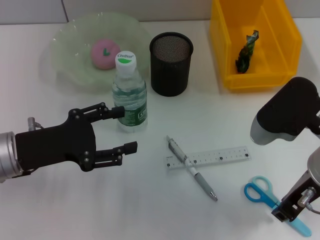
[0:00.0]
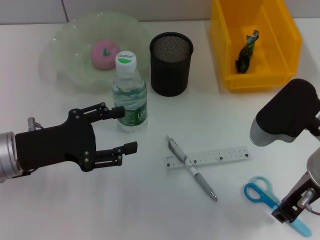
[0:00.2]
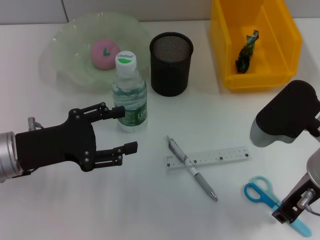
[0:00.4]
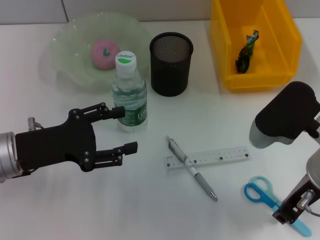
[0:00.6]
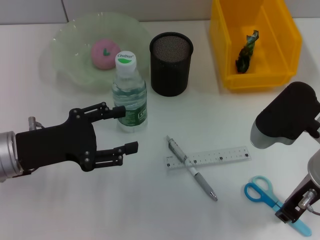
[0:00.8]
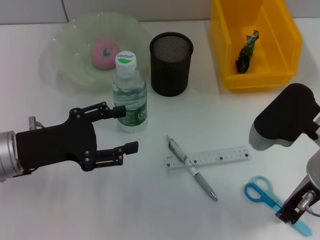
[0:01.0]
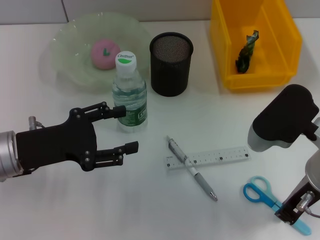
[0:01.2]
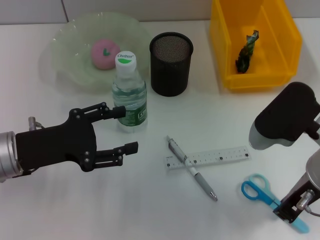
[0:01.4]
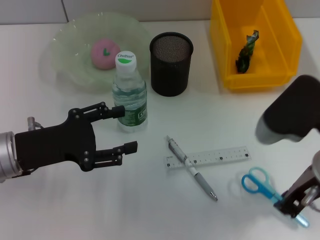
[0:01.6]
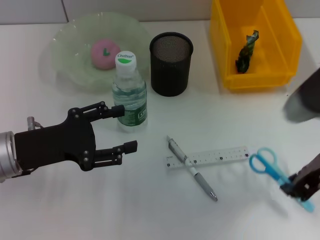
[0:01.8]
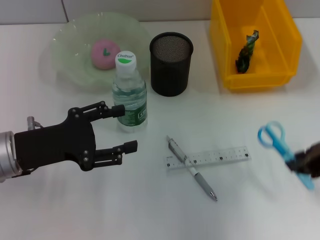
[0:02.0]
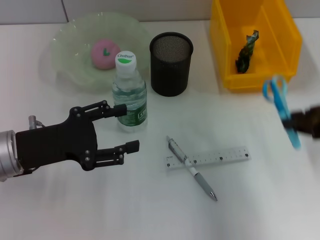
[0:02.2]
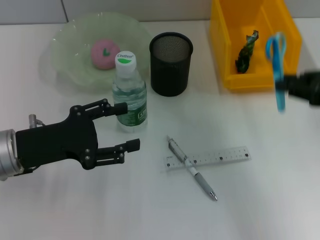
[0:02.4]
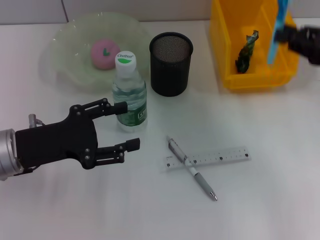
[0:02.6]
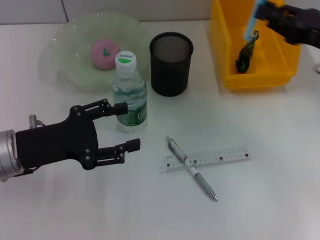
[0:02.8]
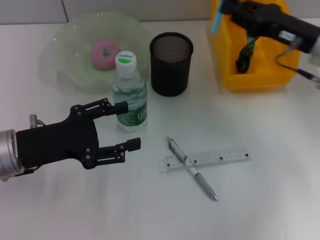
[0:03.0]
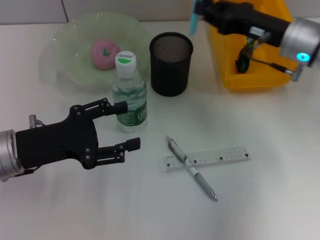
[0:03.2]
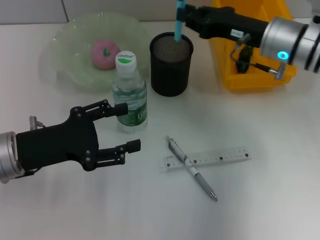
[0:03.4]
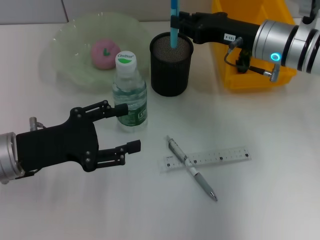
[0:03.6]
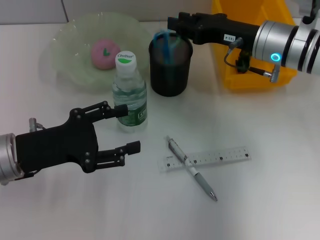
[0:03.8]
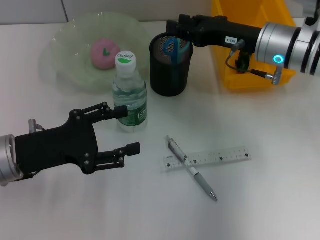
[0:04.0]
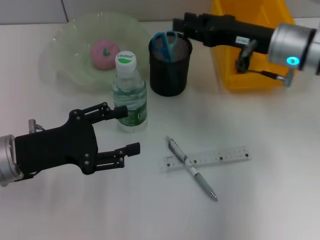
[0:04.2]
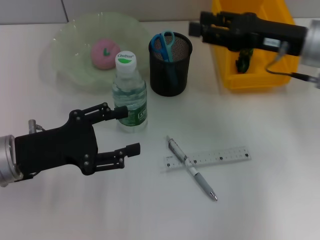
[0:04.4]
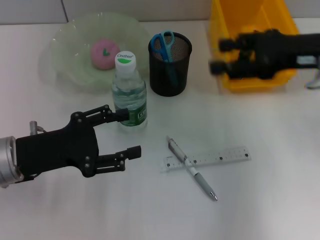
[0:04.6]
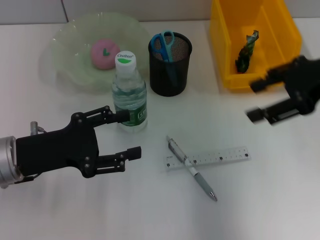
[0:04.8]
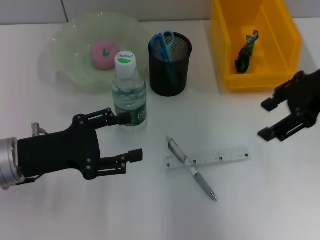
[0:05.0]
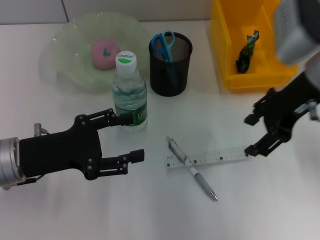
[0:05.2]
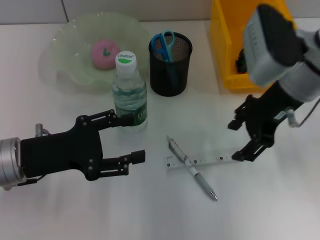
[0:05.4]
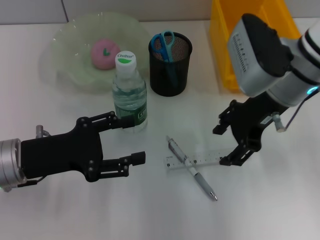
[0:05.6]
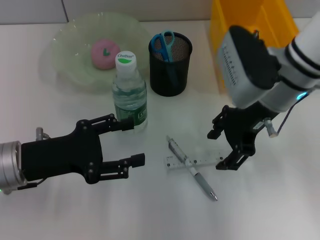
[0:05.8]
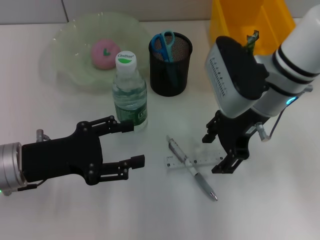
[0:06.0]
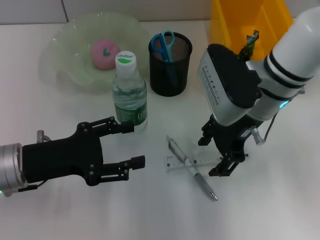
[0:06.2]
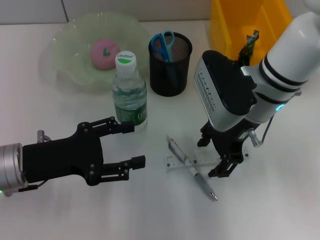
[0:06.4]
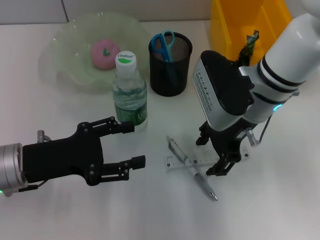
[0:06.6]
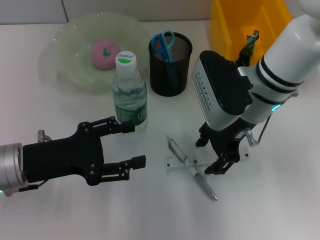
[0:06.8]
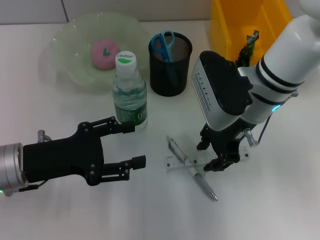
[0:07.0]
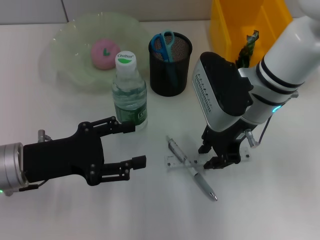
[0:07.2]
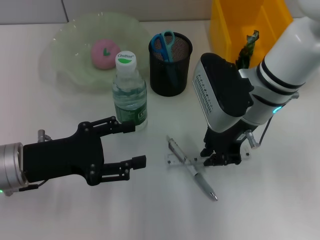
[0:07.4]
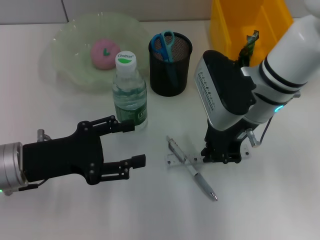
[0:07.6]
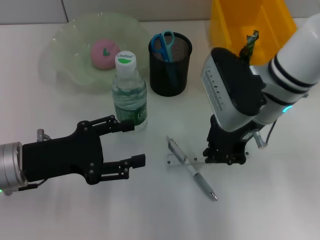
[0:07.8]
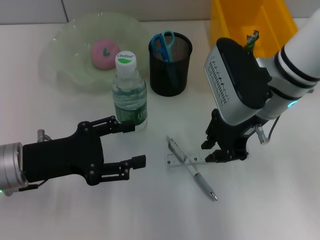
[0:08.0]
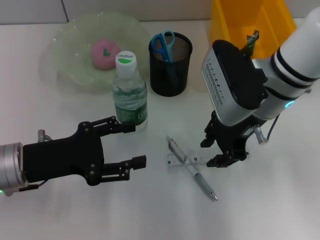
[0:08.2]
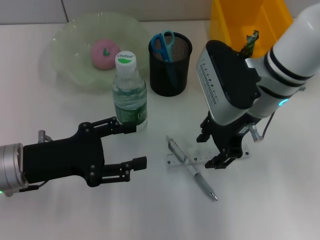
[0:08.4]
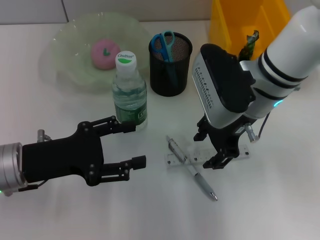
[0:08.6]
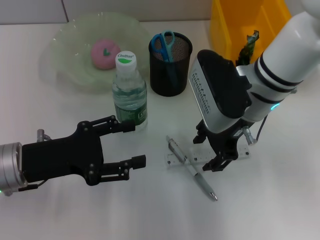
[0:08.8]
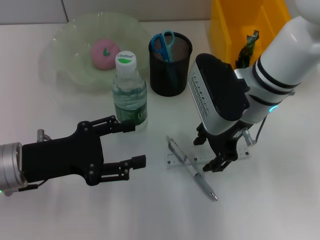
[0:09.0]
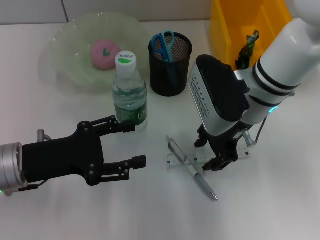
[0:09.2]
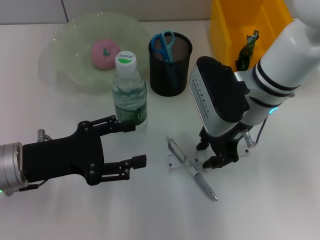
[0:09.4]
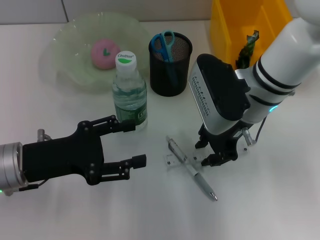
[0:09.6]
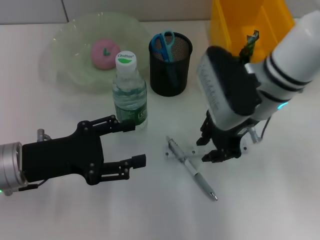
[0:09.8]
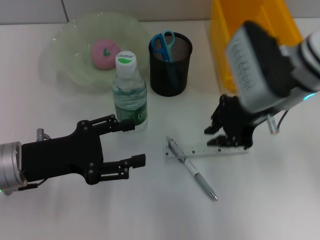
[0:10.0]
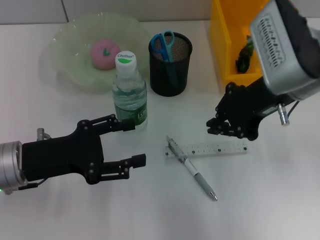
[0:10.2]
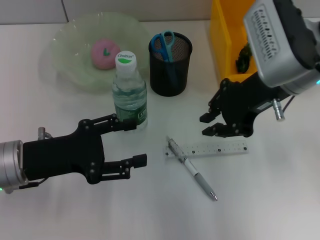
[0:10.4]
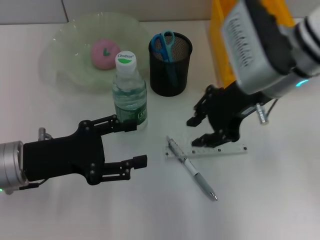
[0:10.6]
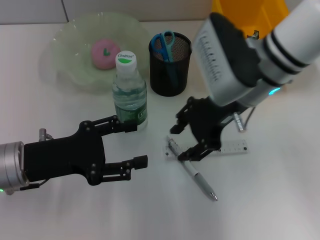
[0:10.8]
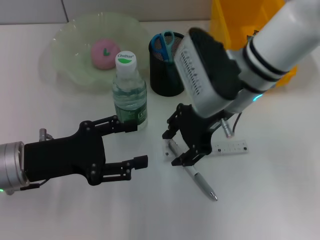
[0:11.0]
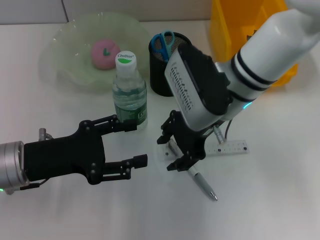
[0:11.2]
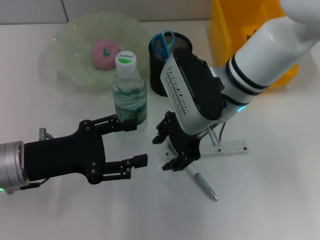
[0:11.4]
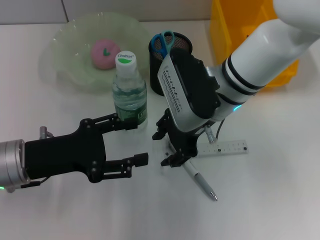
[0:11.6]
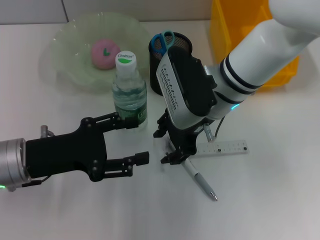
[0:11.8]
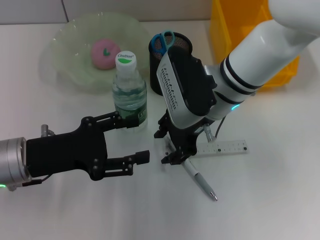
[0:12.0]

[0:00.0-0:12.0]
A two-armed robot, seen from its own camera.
Step, 0:01.2 to 0:04.0: Place the blue scissors into the pen holder with the right hand.
0:00.0 to 0:01.6: Neither gripper changes place.
0:01.6 to 0:03.0: The right gripper is displaced forward and to the right by roughly 15 cm.
0:03.0 to 0:04.4: The right gripper opens up.
0:04.4 to 0:06.0: The right gripper heads to the left, covering some 10 cm.
0:06.0 to 0:07.6: The right gripper closes.
0:07.6 to 0:09.0: The right gripper opens its fingers.
0:09.0 to 0:10.4: The right gripper is displaced upward by about 5 cm, and closes.
0:10.4 to 0:12.0: The right gripper goes about 10 cm to the left and downward, and opens.

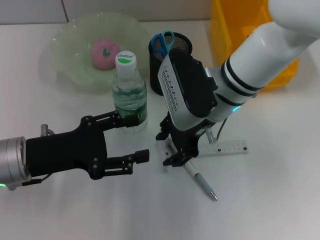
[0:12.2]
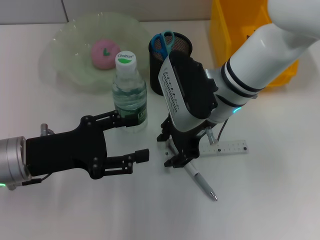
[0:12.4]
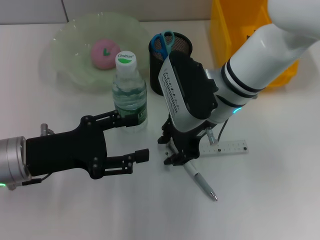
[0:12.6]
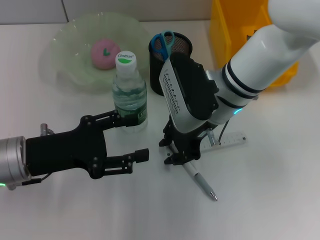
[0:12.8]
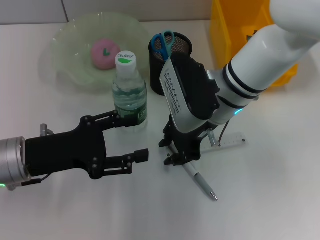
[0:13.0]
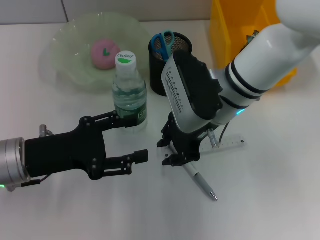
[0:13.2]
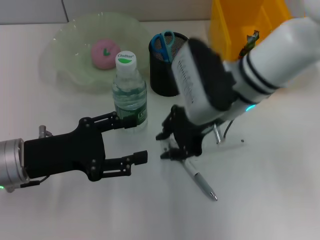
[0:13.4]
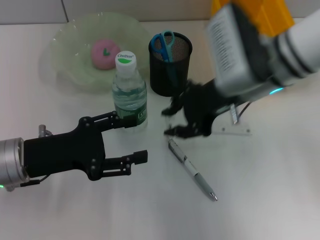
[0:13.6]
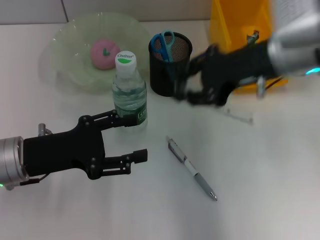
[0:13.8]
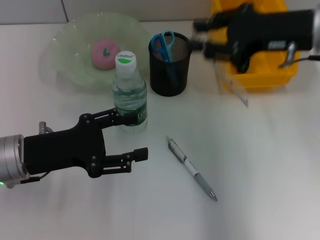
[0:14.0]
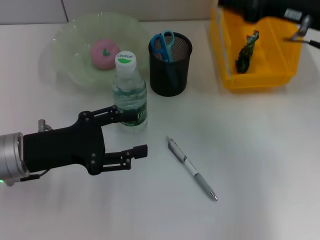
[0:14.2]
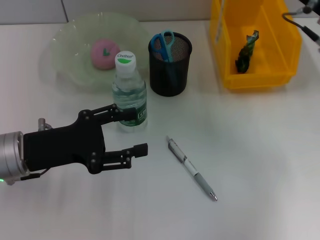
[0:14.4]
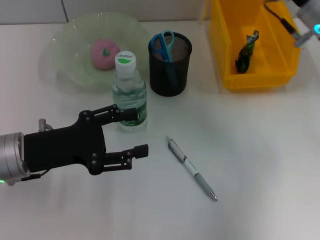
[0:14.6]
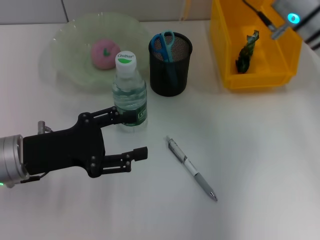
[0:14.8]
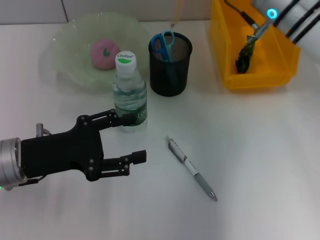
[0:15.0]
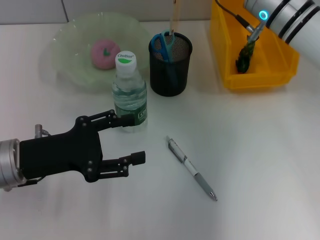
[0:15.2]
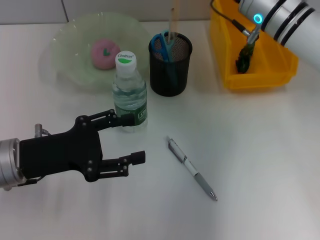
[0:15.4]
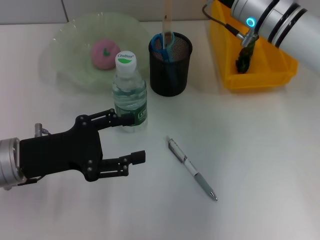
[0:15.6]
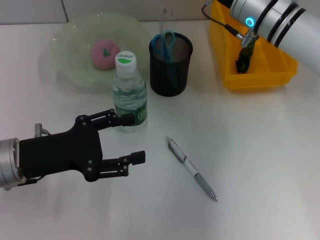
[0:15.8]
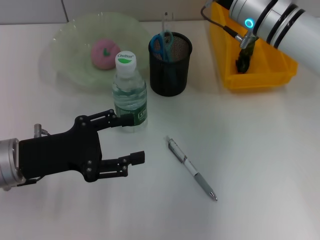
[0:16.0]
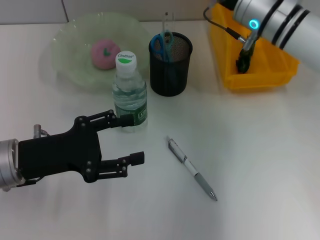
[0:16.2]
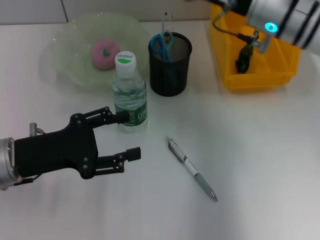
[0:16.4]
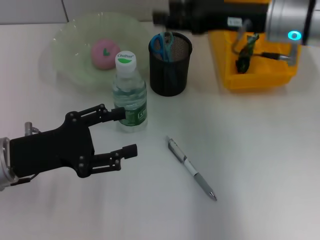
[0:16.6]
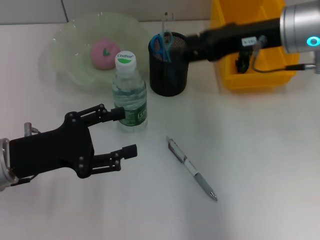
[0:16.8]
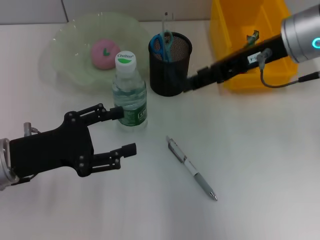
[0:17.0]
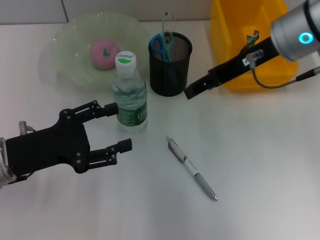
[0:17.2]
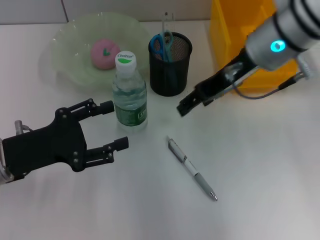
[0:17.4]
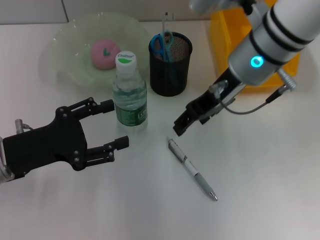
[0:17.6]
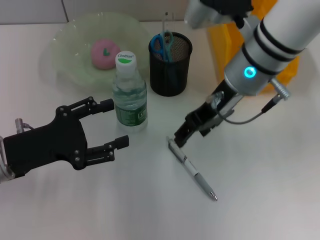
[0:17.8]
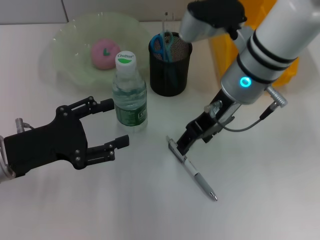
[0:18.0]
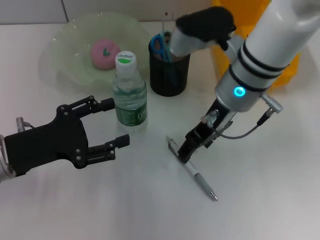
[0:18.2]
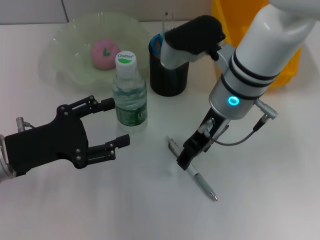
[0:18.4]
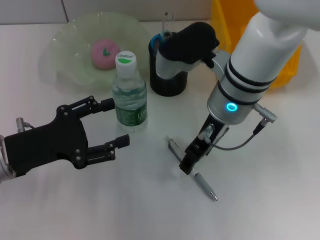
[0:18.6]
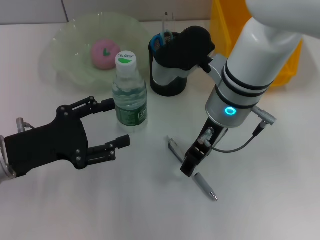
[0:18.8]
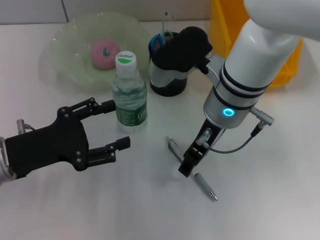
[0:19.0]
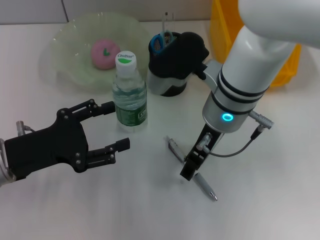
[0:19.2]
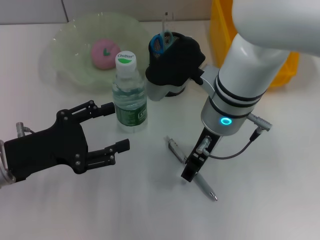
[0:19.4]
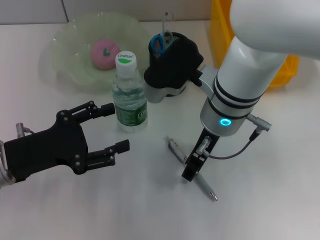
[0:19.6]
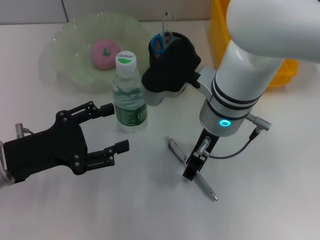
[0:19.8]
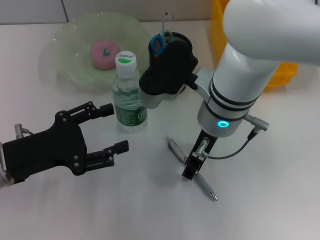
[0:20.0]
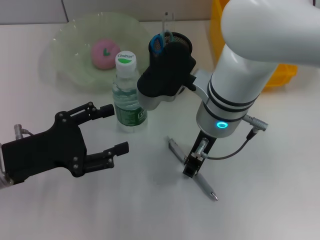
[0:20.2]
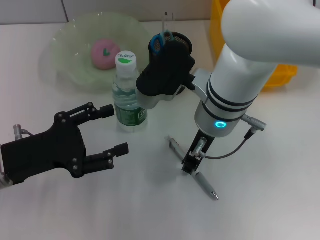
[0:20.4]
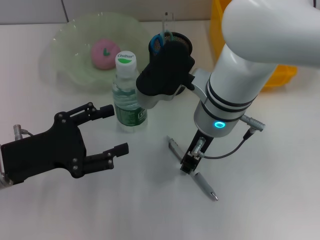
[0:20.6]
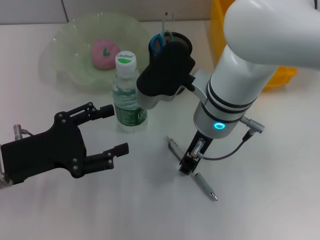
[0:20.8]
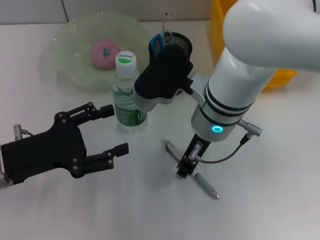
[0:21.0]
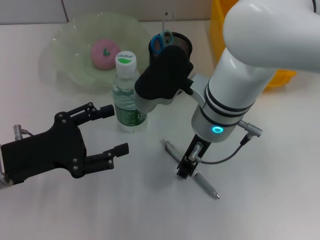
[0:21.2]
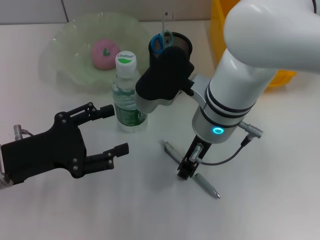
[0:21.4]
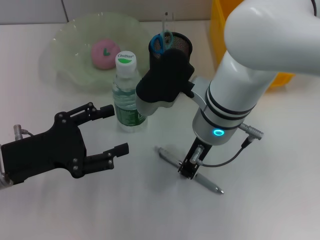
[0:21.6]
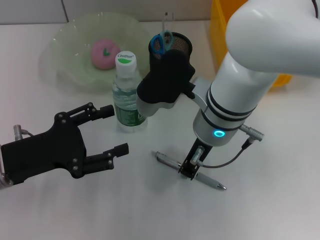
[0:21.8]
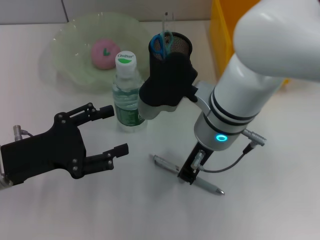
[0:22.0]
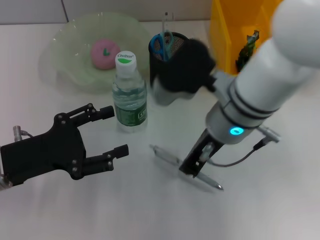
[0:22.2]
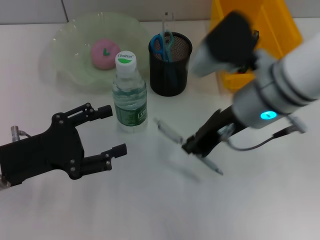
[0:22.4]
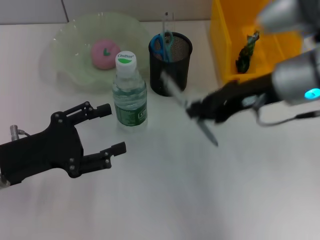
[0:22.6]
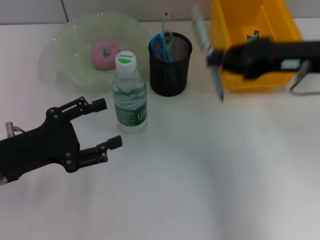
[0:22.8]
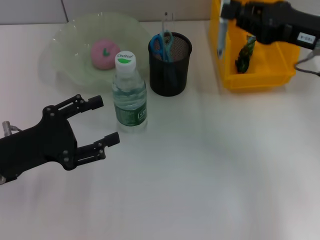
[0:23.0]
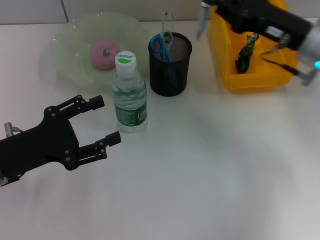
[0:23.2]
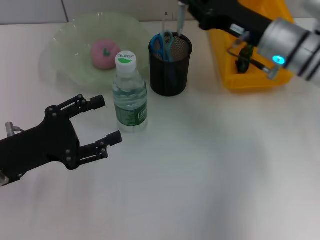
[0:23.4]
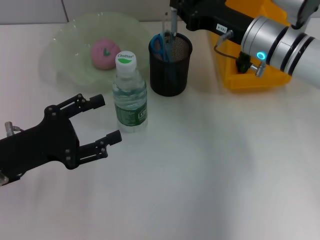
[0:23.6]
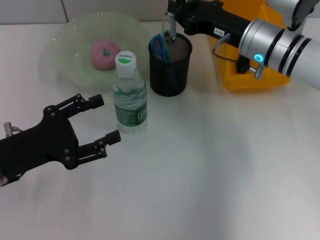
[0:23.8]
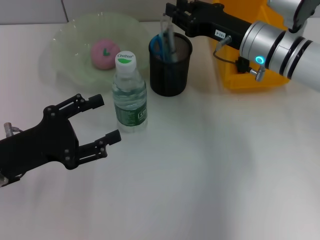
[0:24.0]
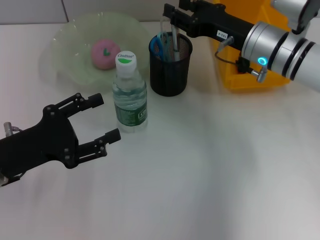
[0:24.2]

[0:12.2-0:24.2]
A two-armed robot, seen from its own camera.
Step, 0:13.2 to 0:15.8: Place the ruler into the pen holder with the right hand.
Step, 0:16.2 to 0:21.8: Grab the gray spring-action pen with the right hand.
Step, 0:22.0 to 0:24.0: Place the gray spring-action pen into the pen holder with the right hand.
0:12.2 to 0:13.8: The right gripper goes roughly 10 cm to the right and upward.
0:13.8 to 0:15.2: The right gripper travels forward by some 10 cm, and travels to the right and back again, approximately 5 cm each way.
0:15.2 to 0:16.6: The right gripper moves approximately 5 cm.
0:16.6 to 0:18.2: The right gripper moves to the left, approximately 10 cm.
0:19.8 to 0:21.2: The right gripper closes its fingers.
0:21.2 to 0:22.6: The right gripper travels to the right and upward by some 15 cm, and closes its fingers.
0:22.6 to 0:24.2: The right gripper heads forward and downward, covering some 10 cm, and opens its fingers.
